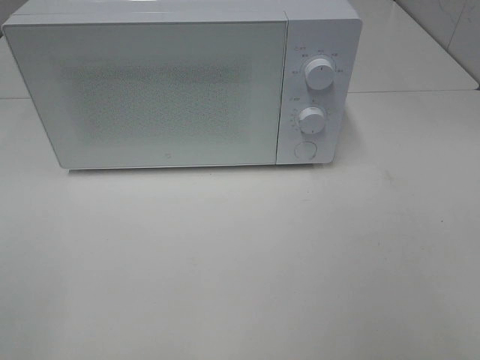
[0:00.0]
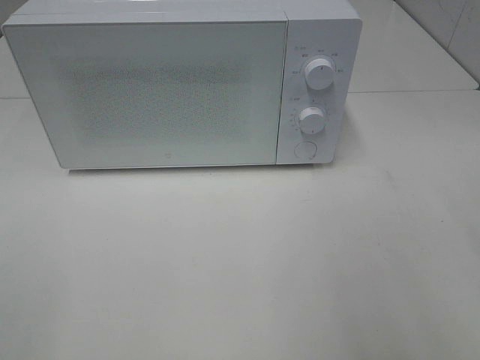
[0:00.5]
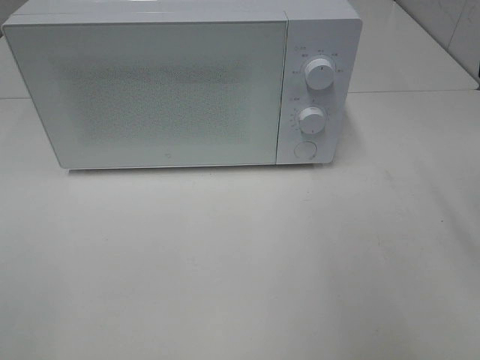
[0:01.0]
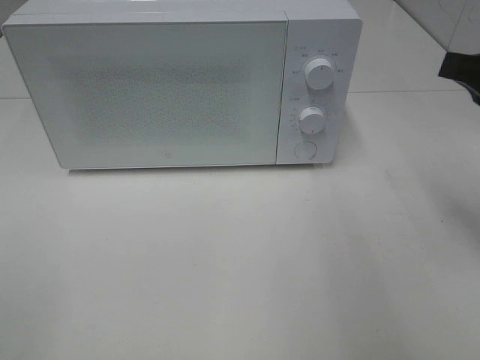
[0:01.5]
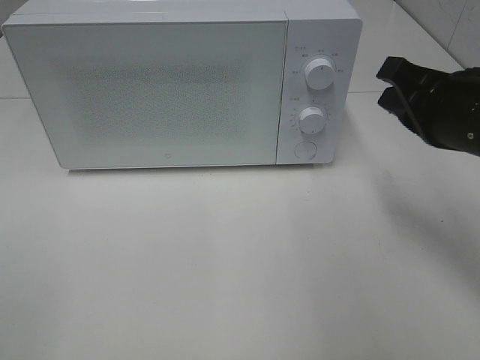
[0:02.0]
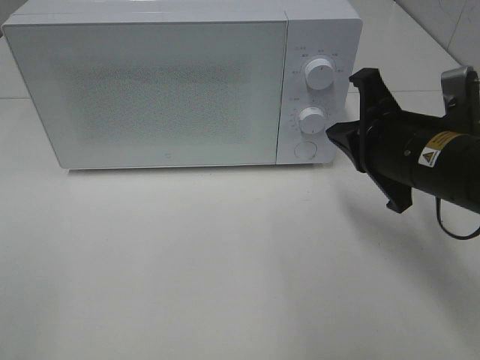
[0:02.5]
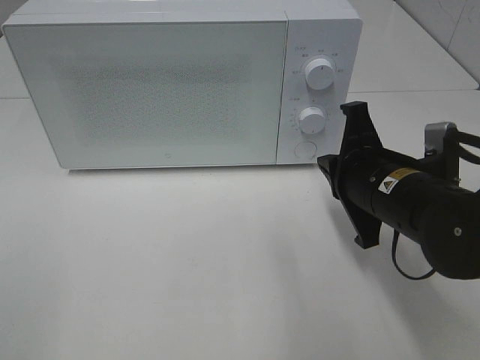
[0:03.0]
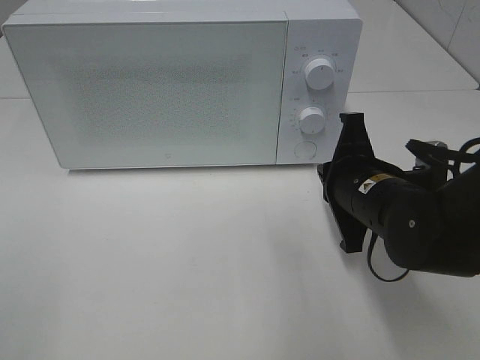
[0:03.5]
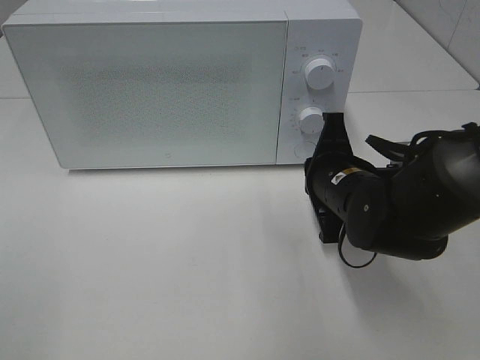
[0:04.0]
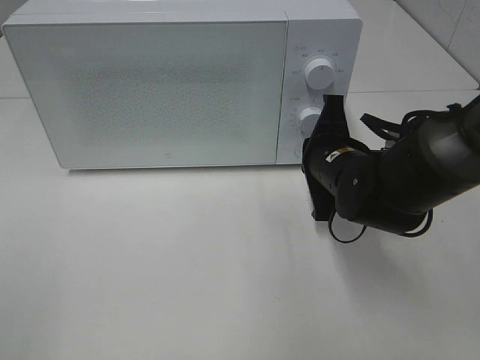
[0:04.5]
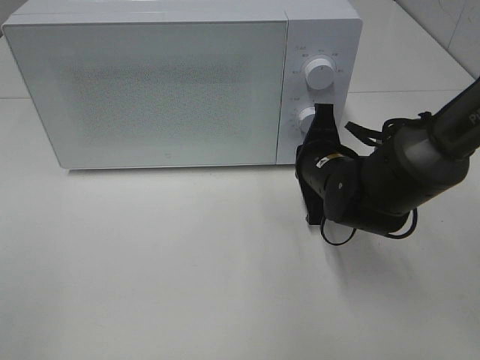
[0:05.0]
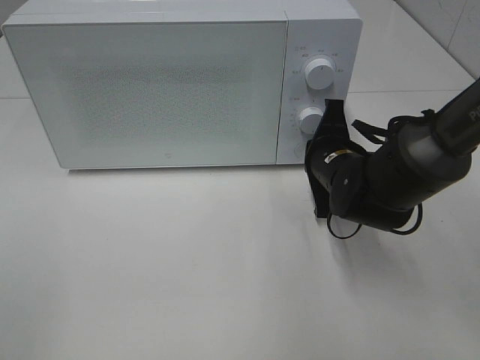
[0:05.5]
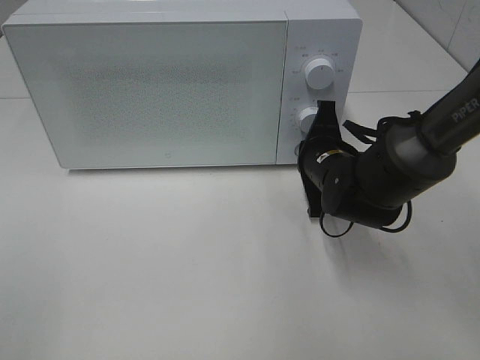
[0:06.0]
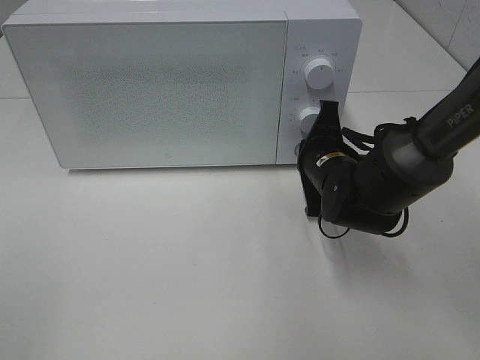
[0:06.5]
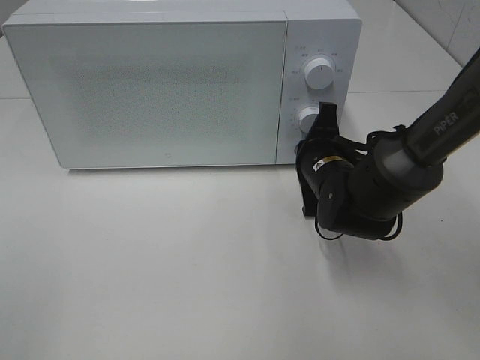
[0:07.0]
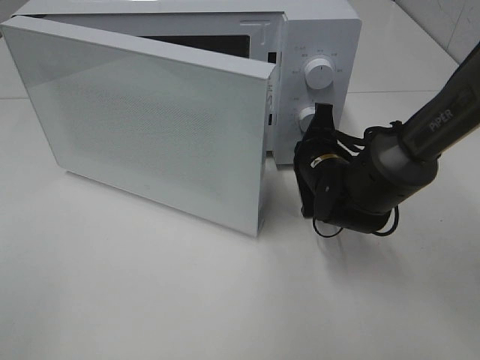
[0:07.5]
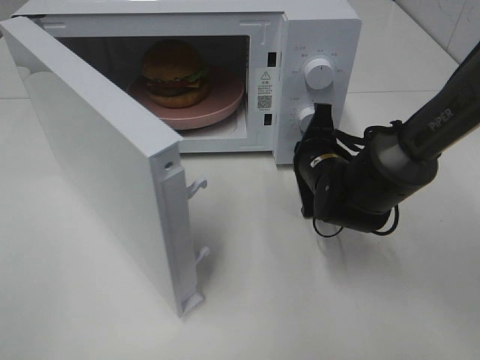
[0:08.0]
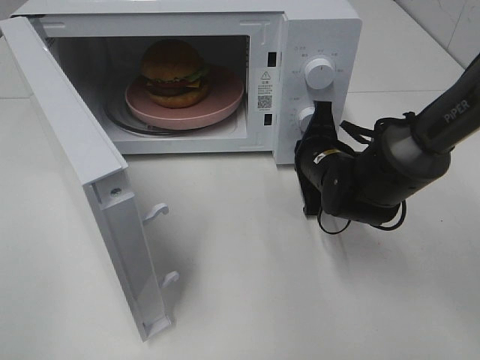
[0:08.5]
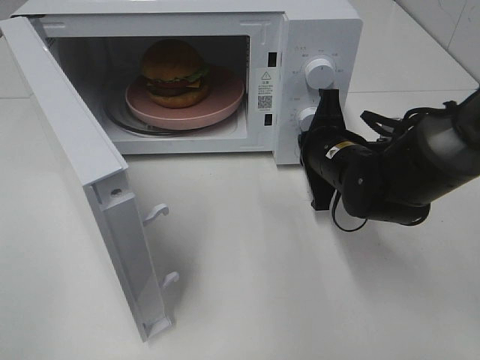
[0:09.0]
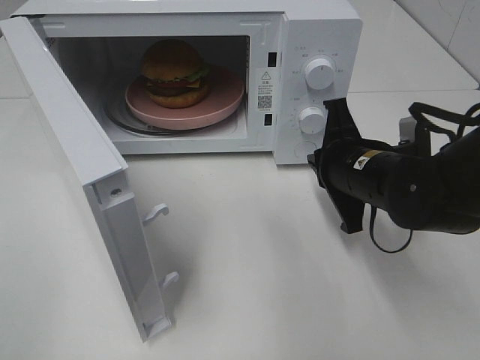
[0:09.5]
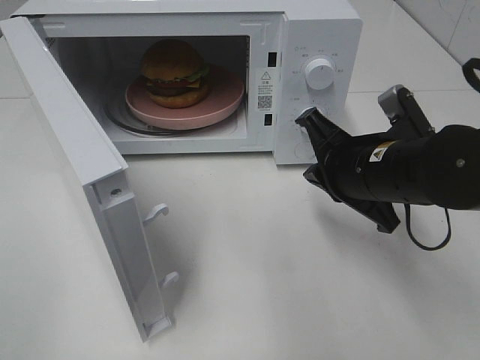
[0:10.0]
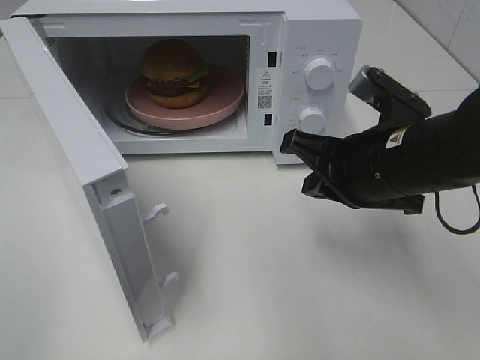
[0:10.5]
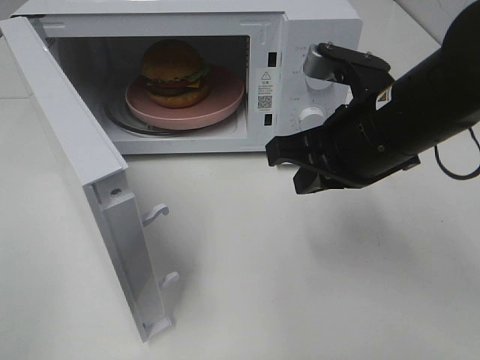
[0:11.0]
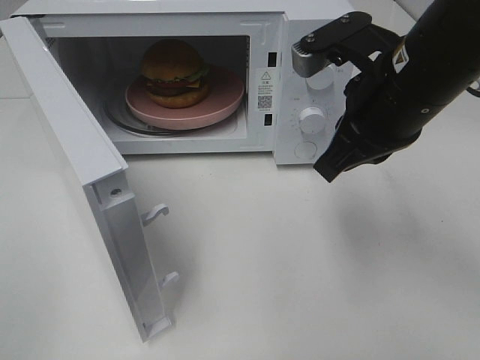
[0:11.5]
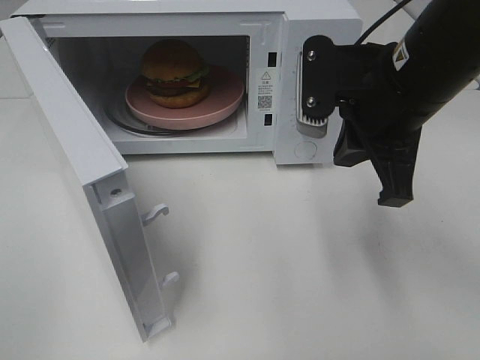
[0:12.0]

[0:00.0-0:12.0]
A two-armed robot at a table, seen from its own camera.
Task of the whole recording: Heat the burger.
Step, 0.0 to 9.0 s: Right hand: press the switch.
0.0 to 2.0 s: The right gripper moves forward, to the left and downward, approximately 25 cm, and closes.
2.0 to 4.0 s: The right gripper heads downward and to the left, covering roughly 15 cm.
4.0 to 6.0 s: The right gripper is displaced forward by some 5 cm.
8.0 to 10.0 s: The right gripper is displaced backward and upward by some 10 cm.
10.0 to 12.0 s: The right gripper shifts some 10 cm upward.

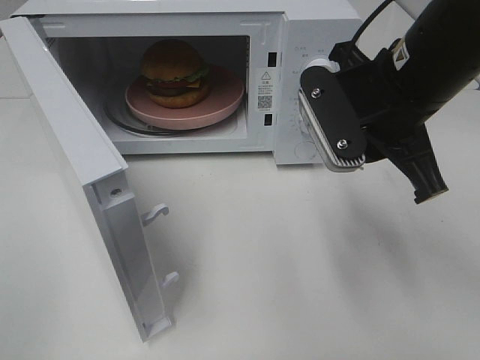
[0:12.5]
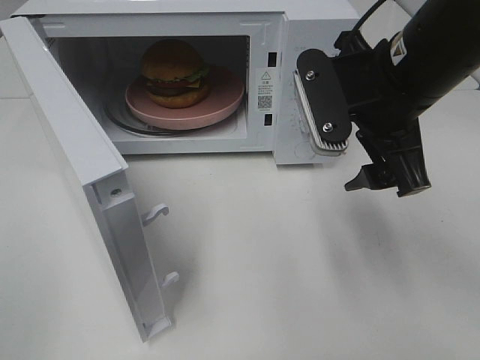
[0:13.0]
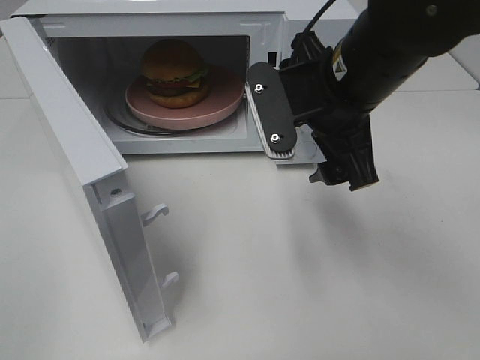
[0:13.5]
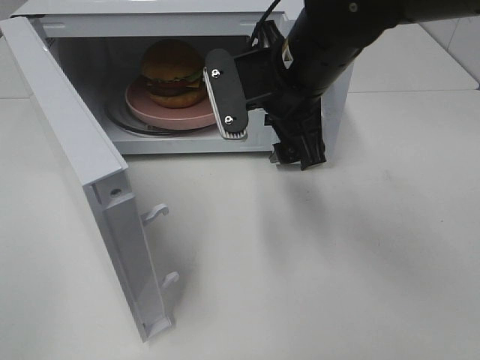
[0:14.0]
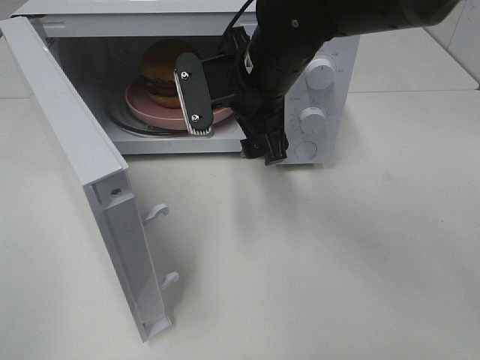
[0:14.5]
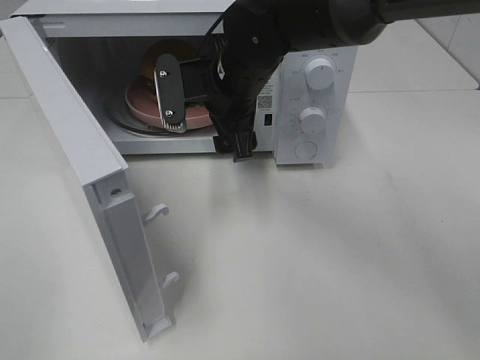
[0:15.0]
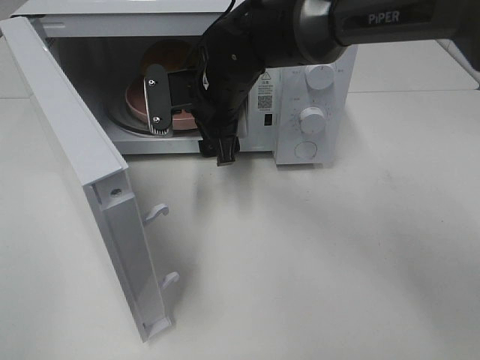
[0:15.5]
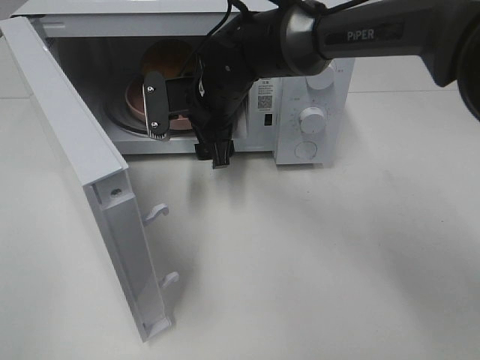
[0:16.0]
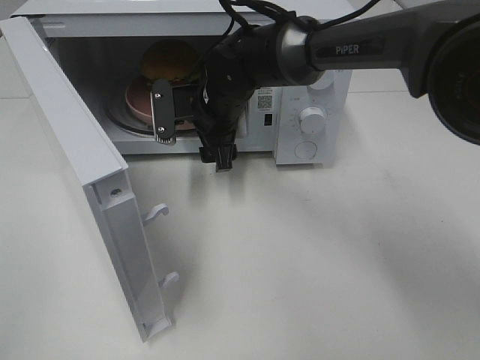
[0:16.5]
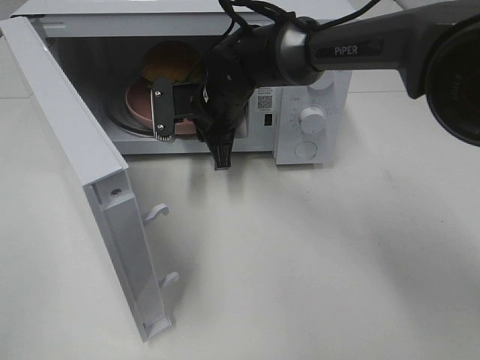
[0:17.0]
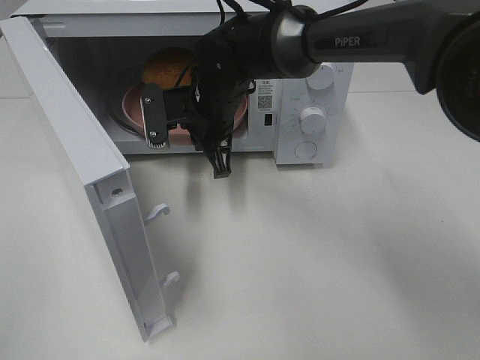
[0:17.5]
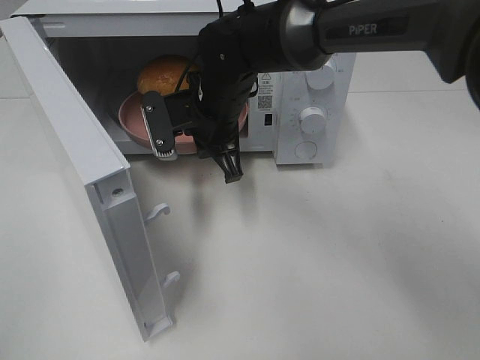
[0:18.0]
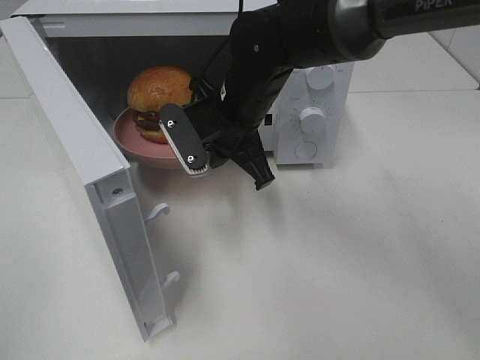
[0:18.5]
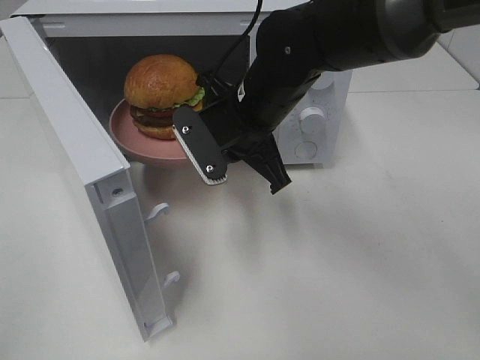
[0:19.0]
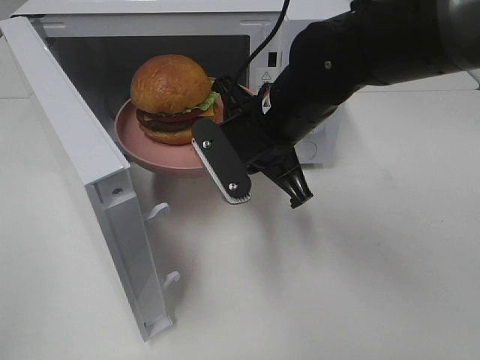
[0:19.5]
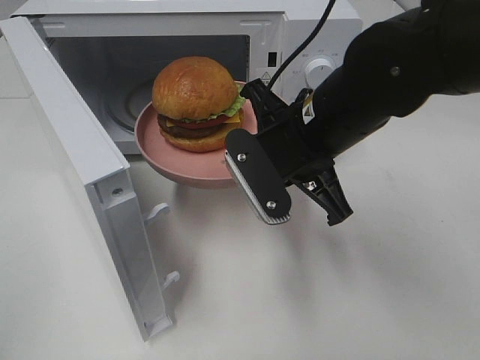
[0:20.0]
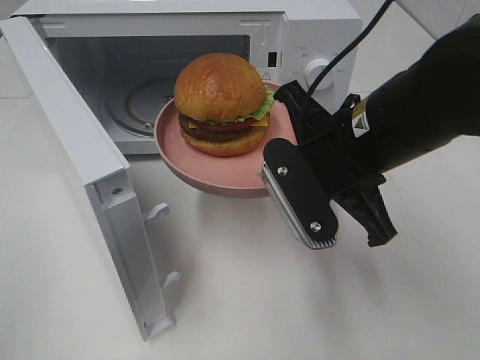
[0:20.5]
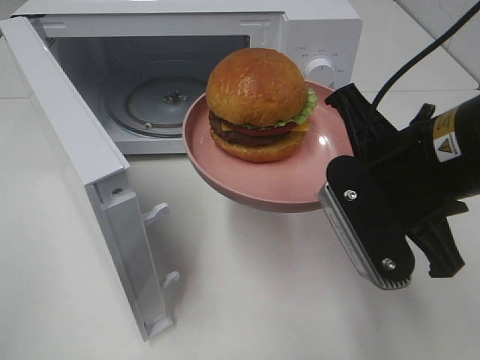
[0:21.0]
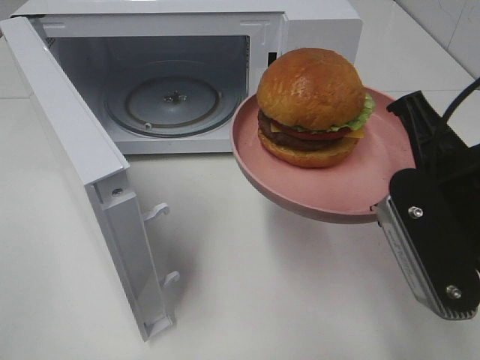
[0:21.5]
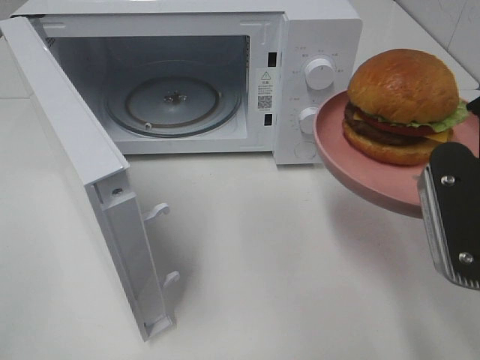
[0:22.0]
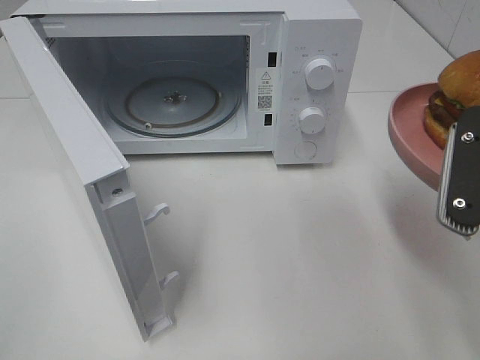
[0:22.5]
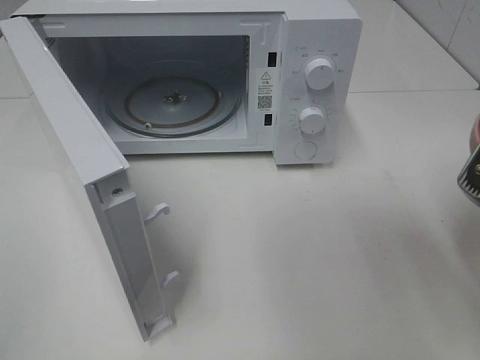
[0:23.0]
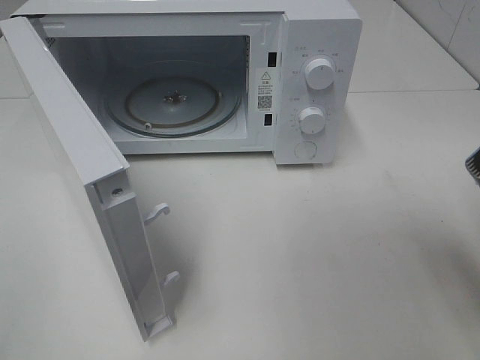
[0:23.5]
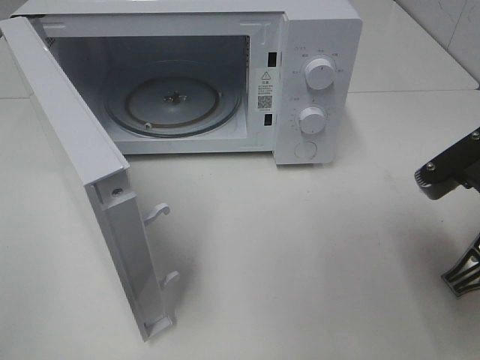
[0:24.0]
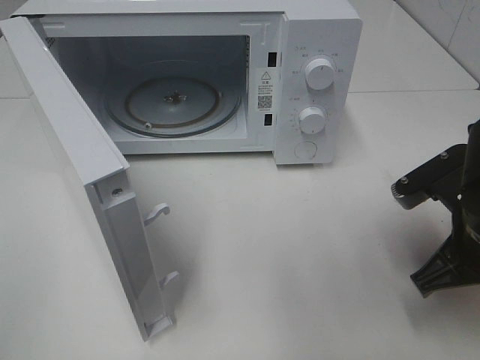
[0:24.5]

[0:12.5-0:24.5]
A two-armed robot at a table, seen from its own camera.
Task of the whole recording: Heat the burger.
Step, 12.5 to 17.0 s: Right hand: grab the plate with the hamburger.
12.5 to 14.5 s: The right gripper heads to the left and forward, covering roughly 15 cm, and opens.
14.5 to 16.5 s: The right gripper moves downward and forward, some 10 cm.
16.5 to 18.5 s: The right gripper is displaced backward by approximately 5 cm, and closes its fingers.
18.5 to 20.5 s: The right gripper is displaced backward and to the right by about 15 cm.
20.5 to 22.5 s: The right gripper goes about 15 cm to the right and backward.
22.5 to 24.5 s: The right gripper is displaced downward by about 10 cm.

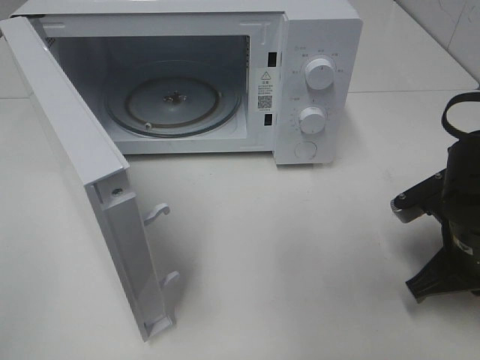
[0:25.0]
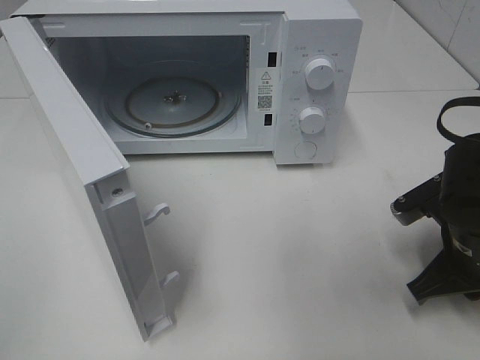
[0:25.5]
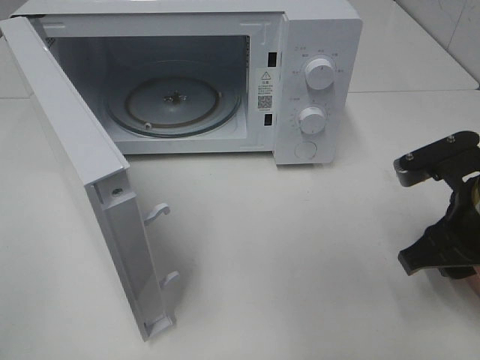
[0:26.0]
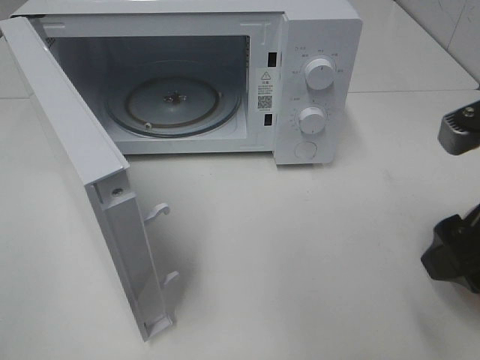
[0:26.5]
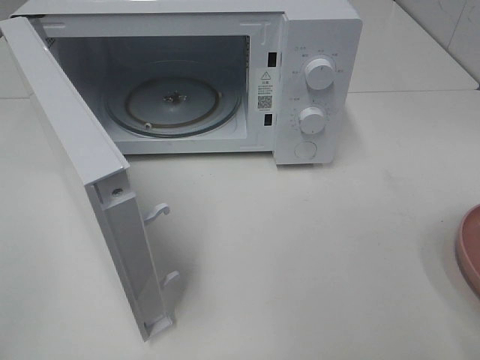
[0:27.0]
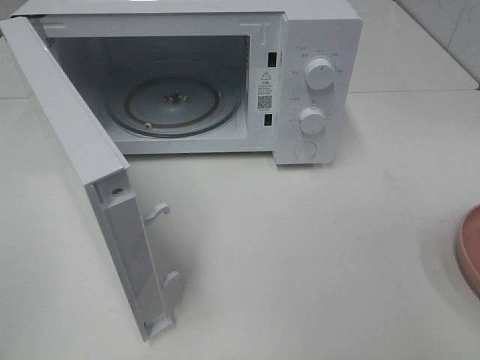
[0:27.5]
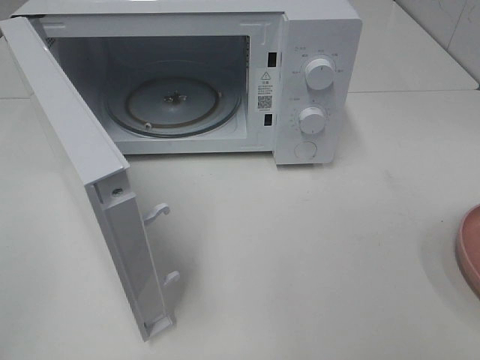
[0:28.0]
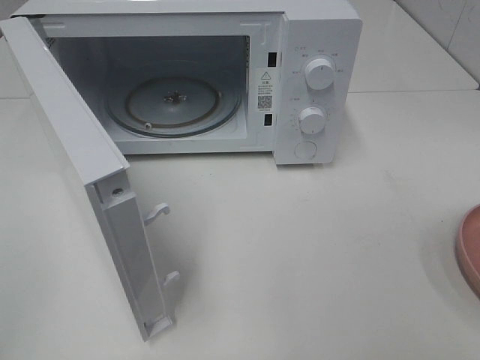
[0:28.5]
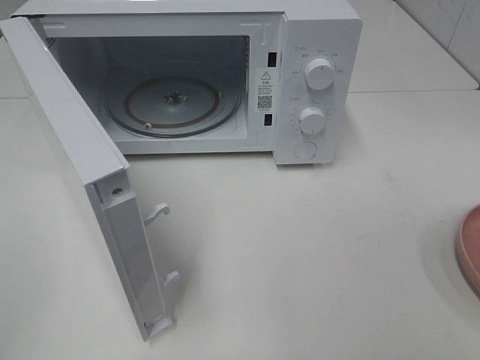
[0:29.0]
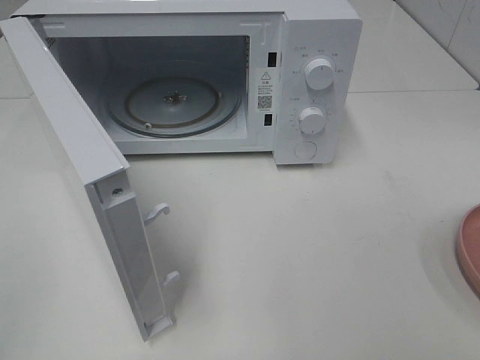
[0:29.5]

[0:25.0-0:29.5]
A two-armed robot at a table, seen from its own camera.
Task of the whole recording: Heat the burger.
25.0 to 27.0 s: The right gripper goes approximately 20 cm upward and backward, and opens its fingers.
